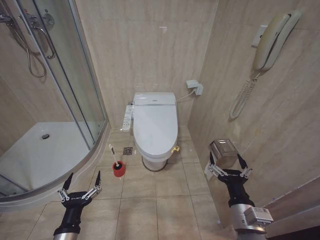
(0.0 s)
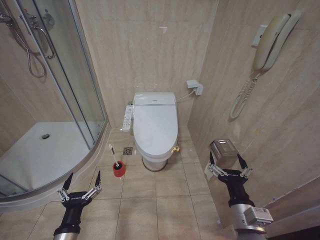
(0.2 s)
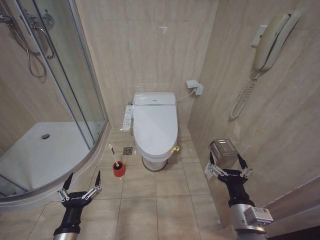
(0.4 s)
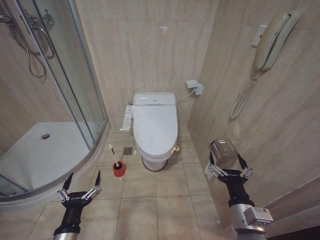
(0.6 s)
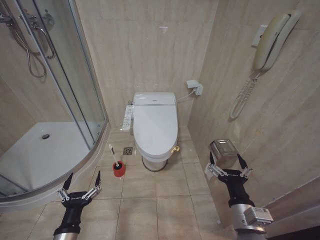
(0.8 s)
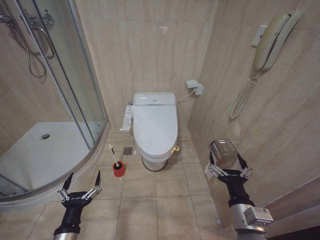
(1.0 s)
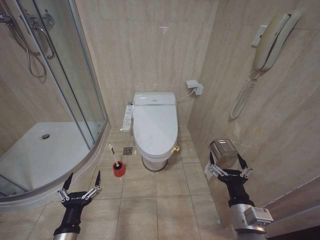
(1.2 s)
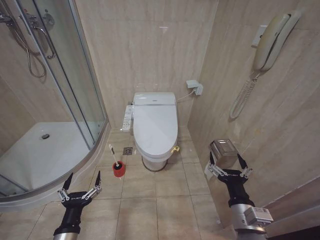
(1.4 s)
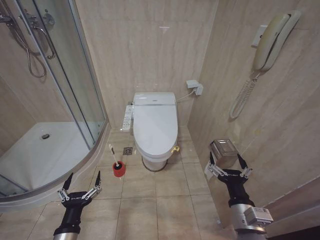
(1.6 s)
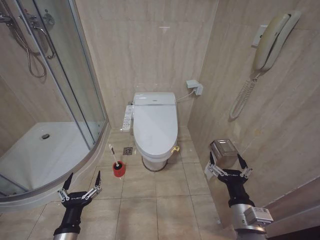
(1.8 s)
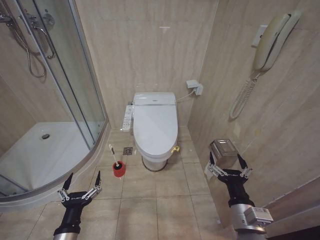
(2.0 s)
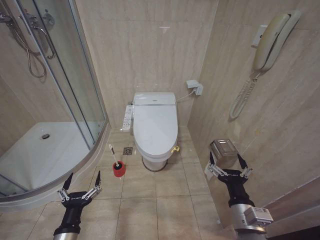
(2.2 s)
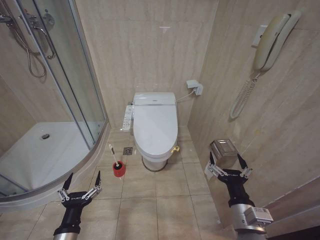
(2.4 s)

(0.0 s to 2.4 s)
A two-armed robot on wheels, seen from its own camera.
Task of the whole recording: Open the toilet lid, clean the toilet bowl with a toilet brush, close the toilet lid, and flush.
0.0 s - 2.4 s: Neither gripper changes place.
